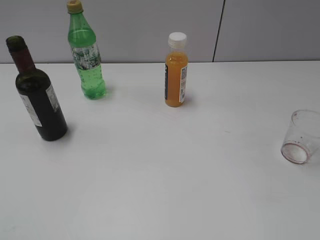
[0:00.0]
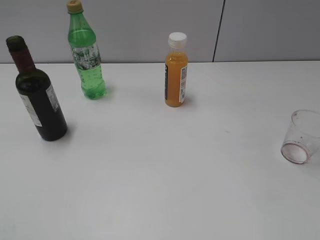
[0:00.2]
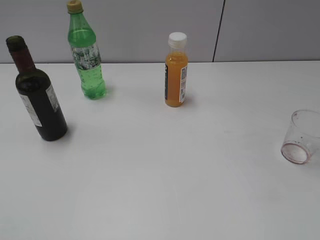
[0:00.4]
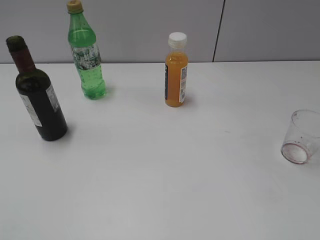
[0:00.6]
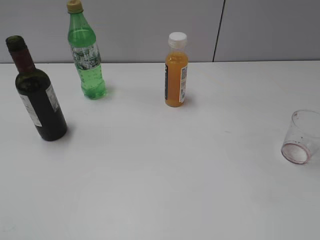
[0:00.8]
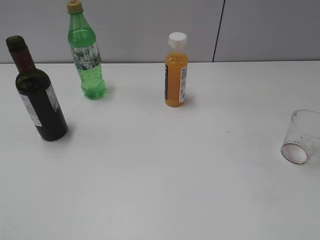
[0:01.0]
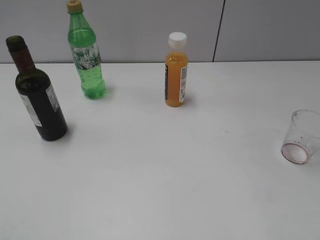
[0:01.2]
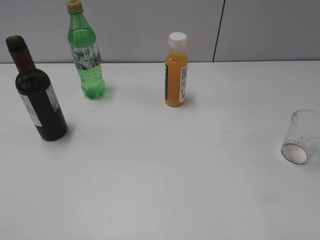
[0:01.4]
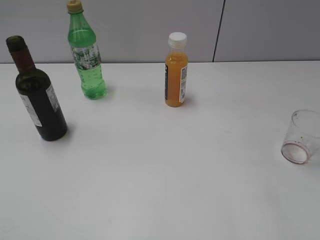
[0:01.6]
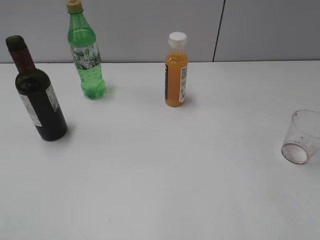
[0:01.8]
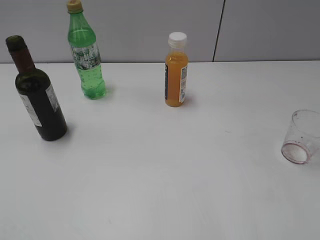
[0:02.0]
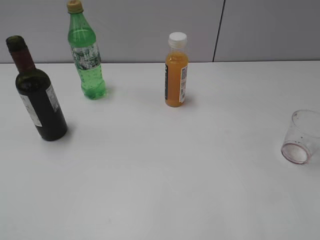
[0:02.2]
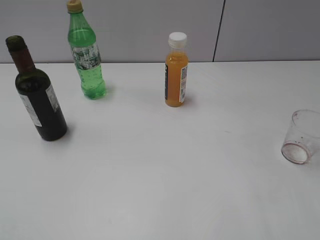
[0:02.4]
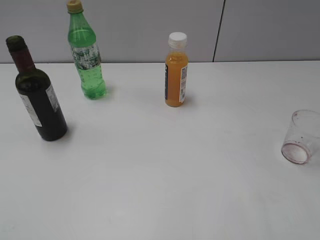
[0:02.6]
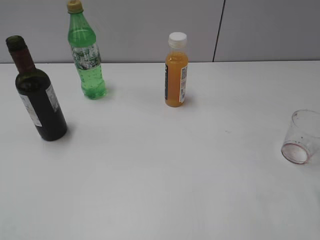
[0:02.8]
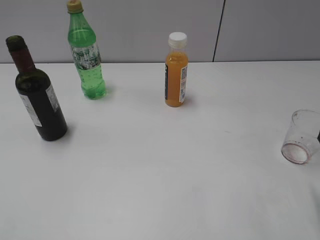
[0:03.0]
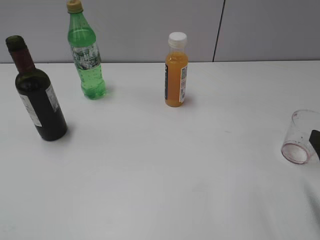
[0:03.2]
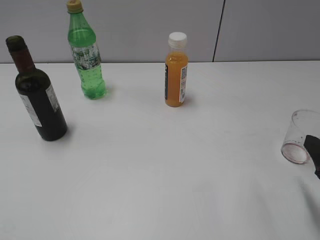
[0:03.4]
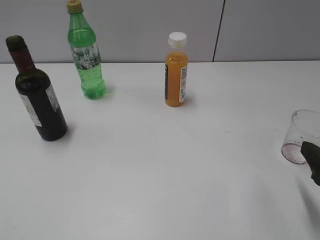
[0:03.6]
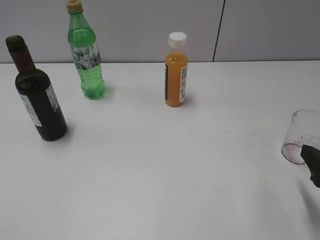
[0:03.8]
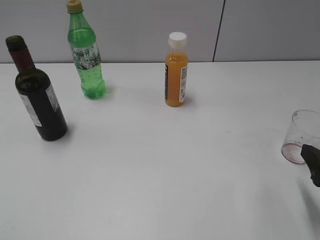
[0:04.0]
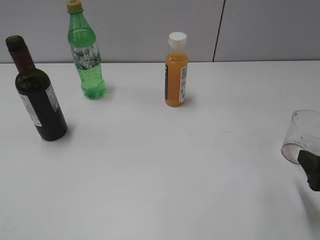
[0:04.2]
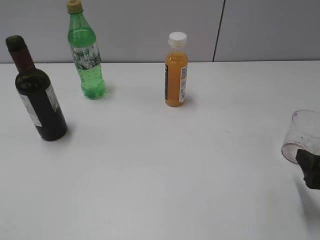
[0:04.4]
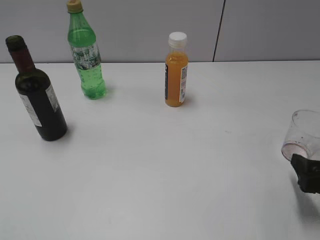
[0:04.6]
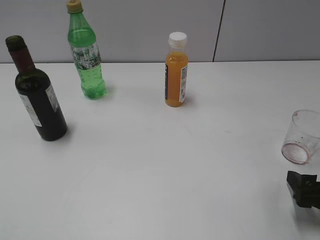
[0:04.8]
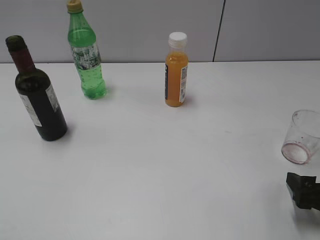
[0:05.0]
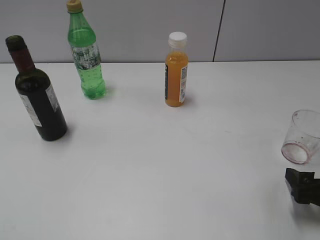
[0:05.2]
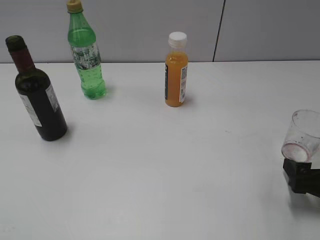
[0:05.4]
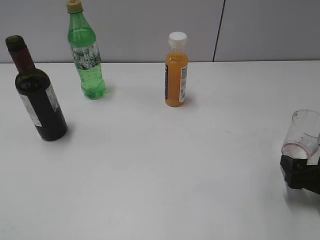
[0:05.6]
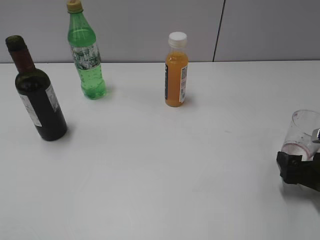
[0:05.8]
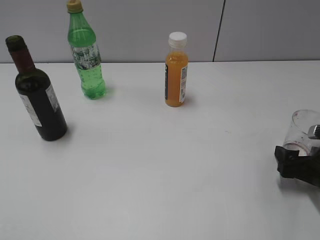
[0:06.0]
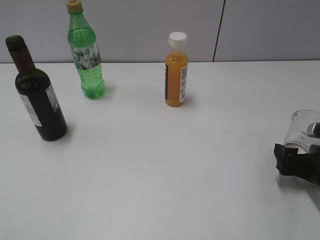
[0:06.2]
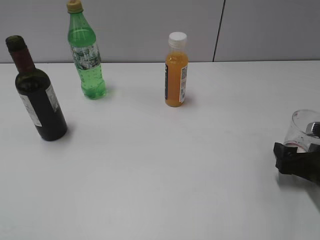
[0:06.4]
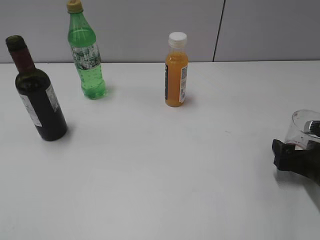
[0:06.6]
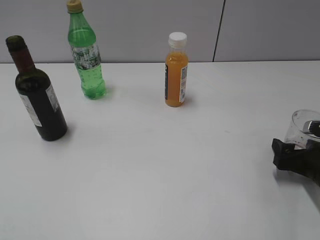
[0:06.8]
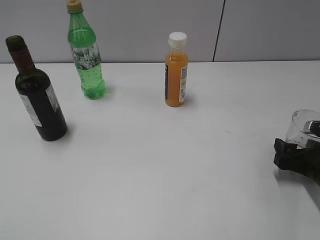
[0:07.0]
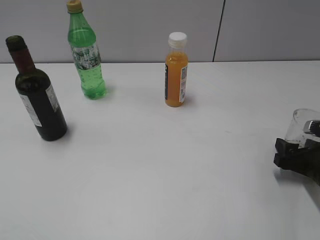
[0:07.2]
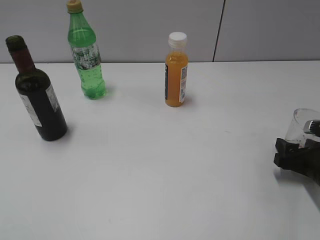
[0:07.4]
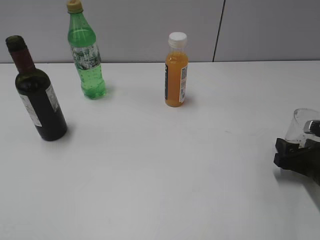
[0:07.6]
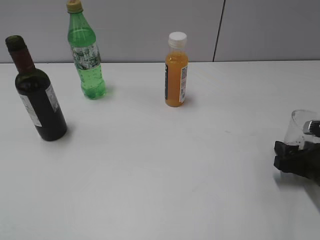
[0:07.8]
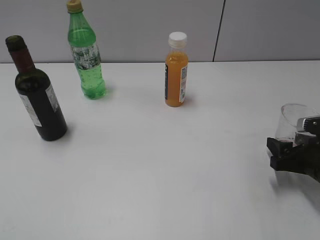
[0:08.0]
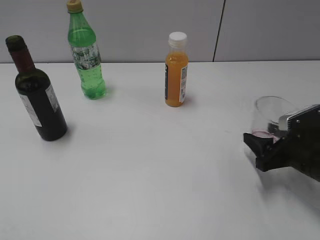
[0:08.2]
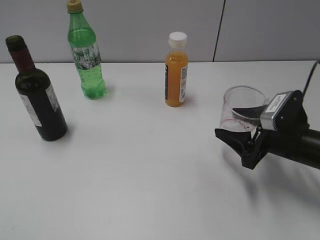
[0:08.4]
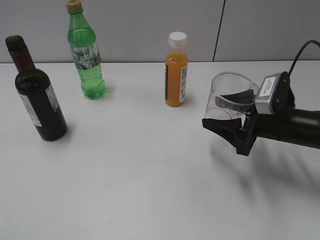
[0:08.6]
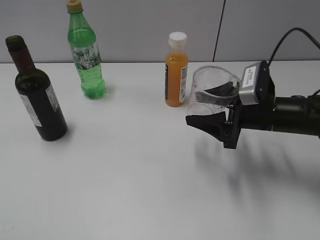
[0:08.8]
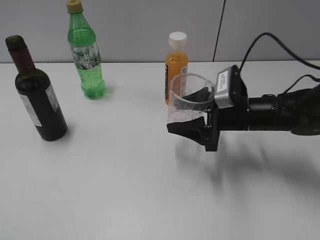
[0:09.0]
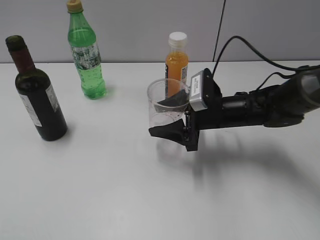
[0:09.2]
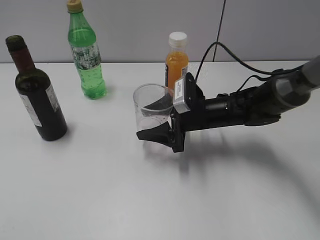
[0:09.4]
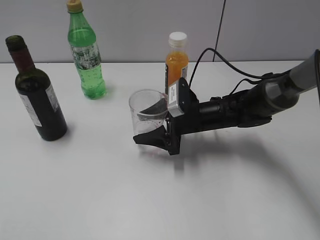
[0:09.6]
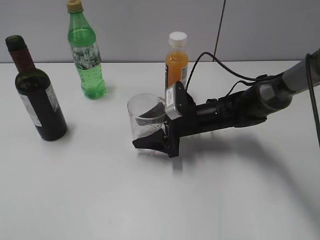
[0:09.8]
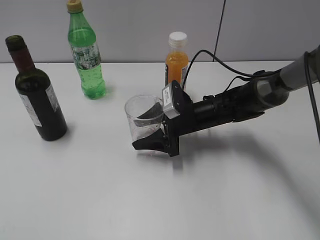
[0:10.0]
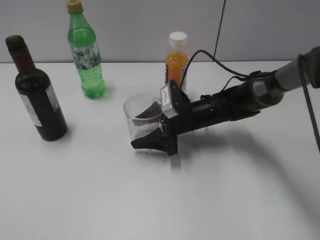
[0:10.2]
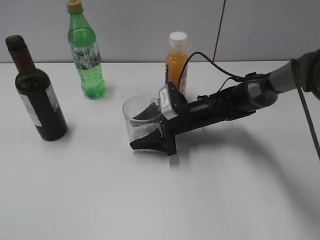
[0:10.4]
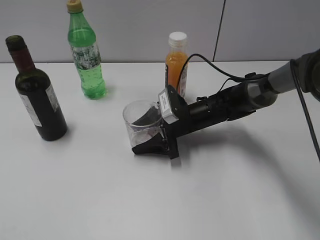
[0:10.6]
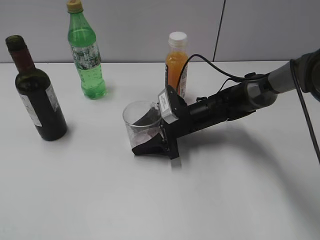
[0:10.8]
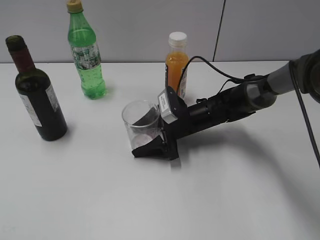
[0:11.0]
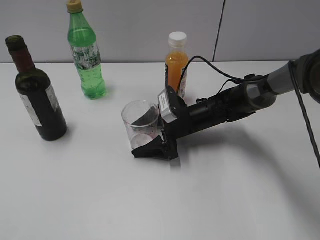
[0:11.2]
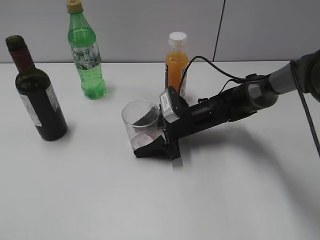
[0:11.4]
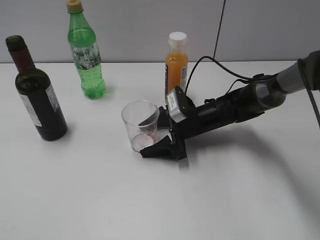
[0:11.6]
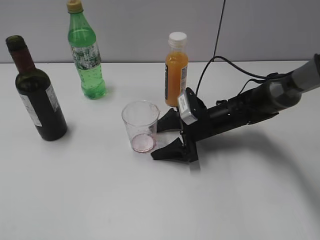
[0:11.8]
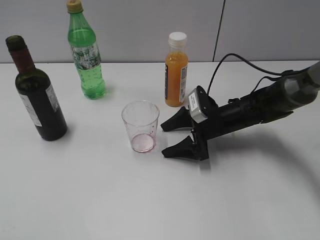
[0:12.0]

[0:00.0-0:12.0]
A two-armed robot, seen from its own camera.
Step, 0:00.8 to 0:07.4: Grasp the transparent cup with right gripper.
Step, 0:07.8 to 0:11.8: Place the transparent cup on the table with right gripper.
0:03.0 to 0:04.4: The right gripper shifts some 5 cm downward.
0:04.4 to 0:06.0: The right gripper travels downward and forward by about 10 cm.
0:06.0 to 0:07.6: The right gripper closes its fingers.
0:07.6 to 0:09.0: The right gripper moves to the left, forward and upward, approximately 15 cm.
0:09.0 to 0:10.4: The right gripper travels to the left, downward and forward by about 15 cm.
0:10.4 to 0:12.0: The right gripper is displaced to the right by approximately 5 cm, and opens.

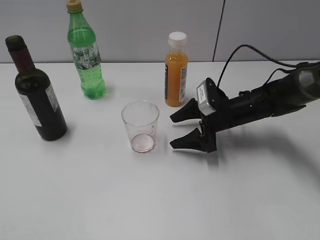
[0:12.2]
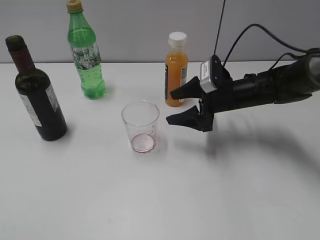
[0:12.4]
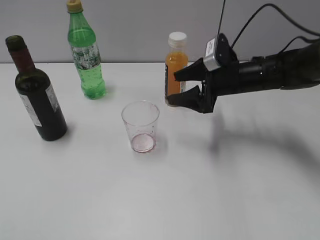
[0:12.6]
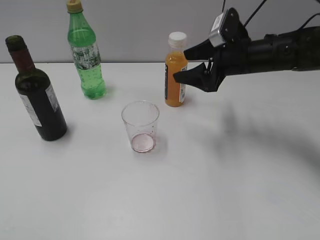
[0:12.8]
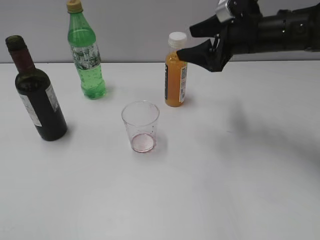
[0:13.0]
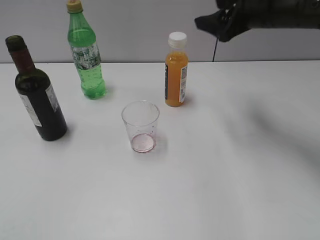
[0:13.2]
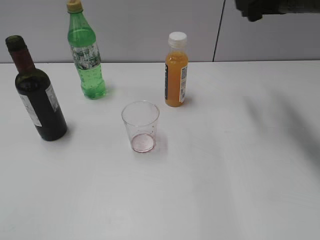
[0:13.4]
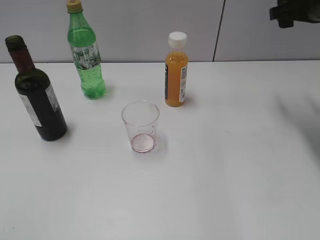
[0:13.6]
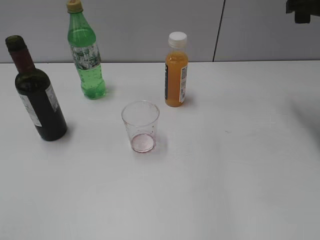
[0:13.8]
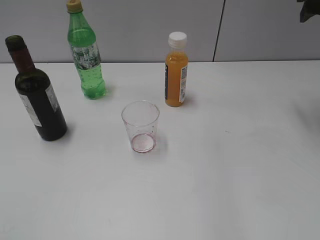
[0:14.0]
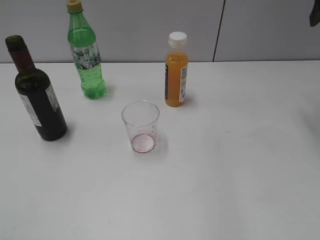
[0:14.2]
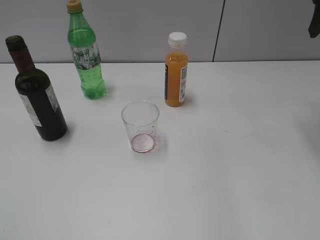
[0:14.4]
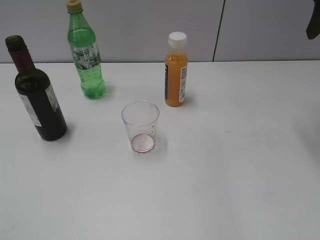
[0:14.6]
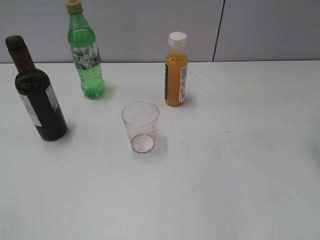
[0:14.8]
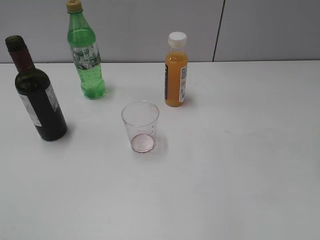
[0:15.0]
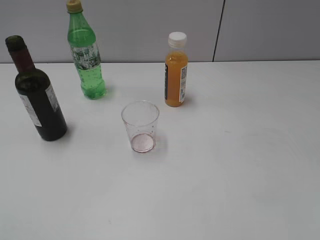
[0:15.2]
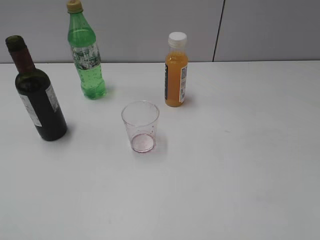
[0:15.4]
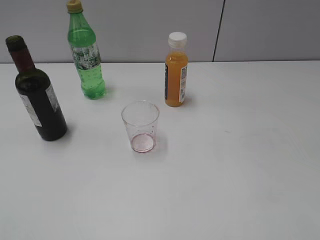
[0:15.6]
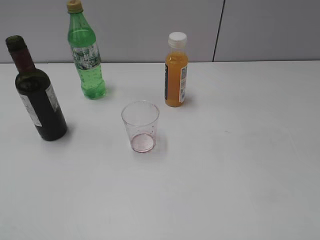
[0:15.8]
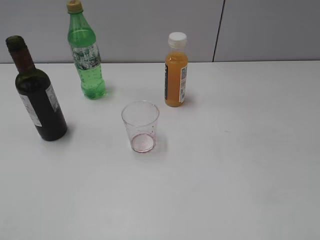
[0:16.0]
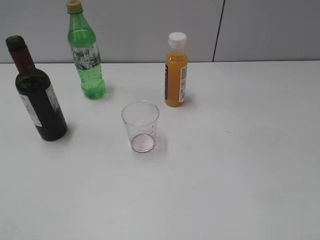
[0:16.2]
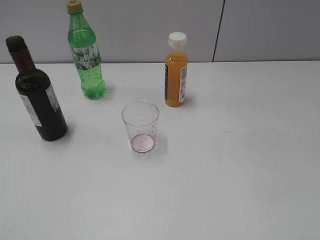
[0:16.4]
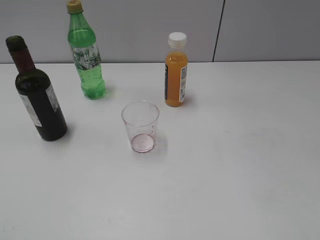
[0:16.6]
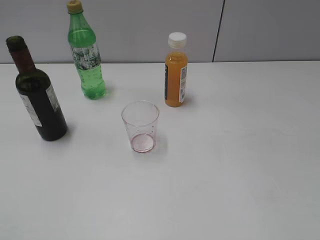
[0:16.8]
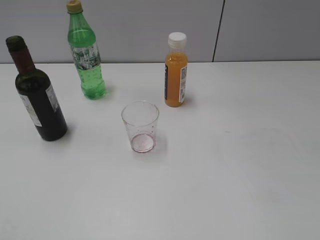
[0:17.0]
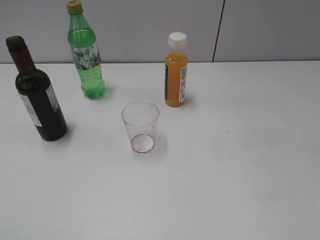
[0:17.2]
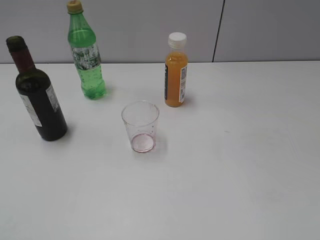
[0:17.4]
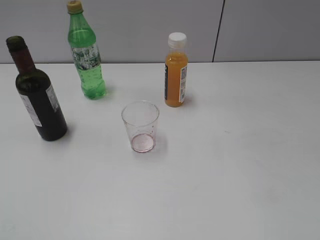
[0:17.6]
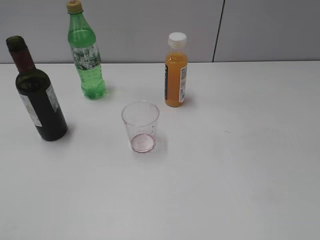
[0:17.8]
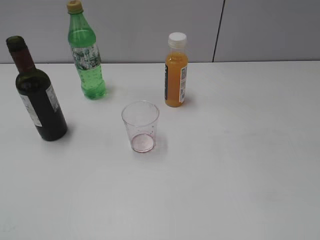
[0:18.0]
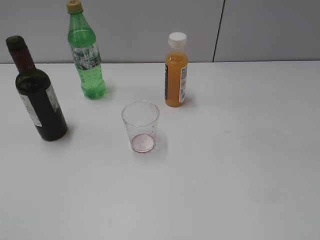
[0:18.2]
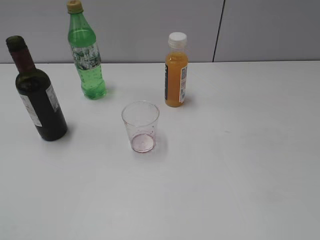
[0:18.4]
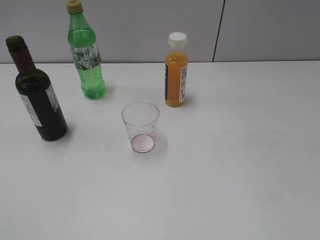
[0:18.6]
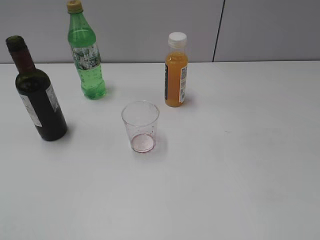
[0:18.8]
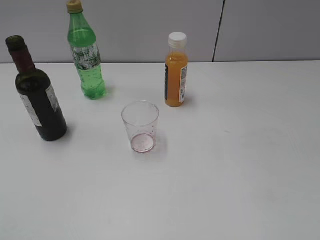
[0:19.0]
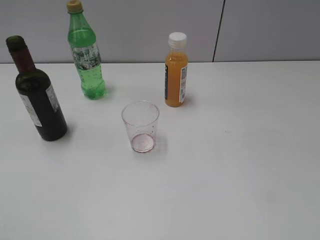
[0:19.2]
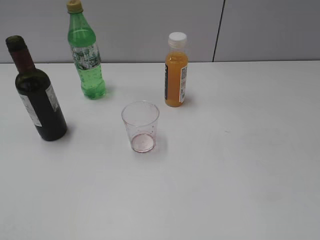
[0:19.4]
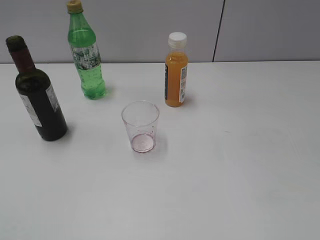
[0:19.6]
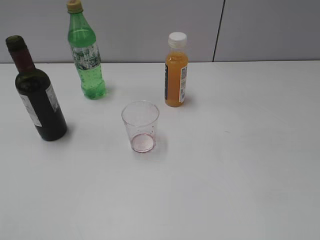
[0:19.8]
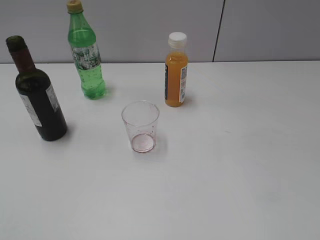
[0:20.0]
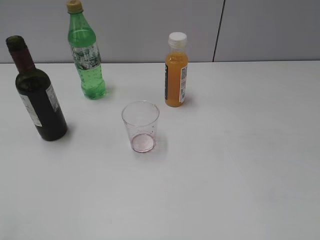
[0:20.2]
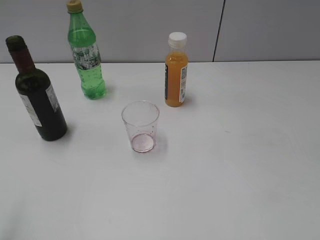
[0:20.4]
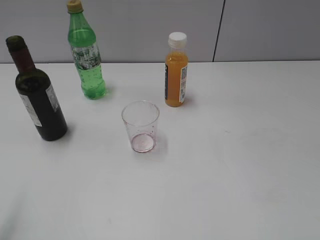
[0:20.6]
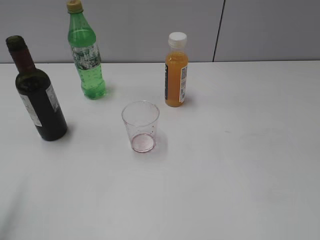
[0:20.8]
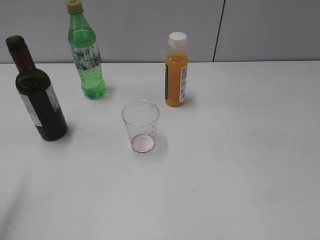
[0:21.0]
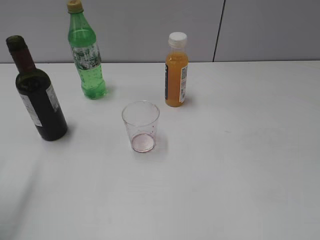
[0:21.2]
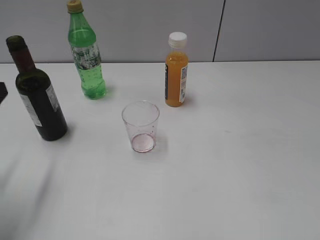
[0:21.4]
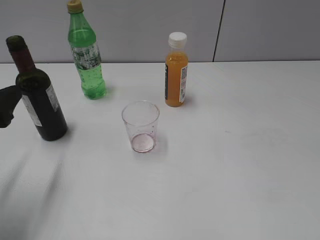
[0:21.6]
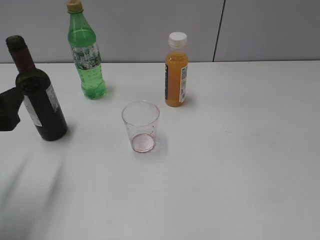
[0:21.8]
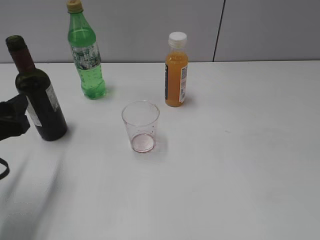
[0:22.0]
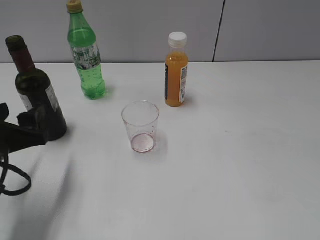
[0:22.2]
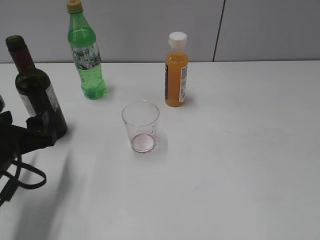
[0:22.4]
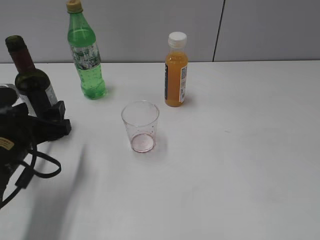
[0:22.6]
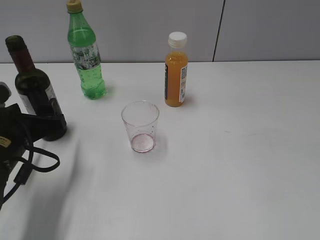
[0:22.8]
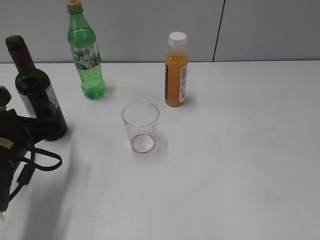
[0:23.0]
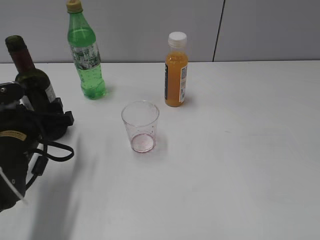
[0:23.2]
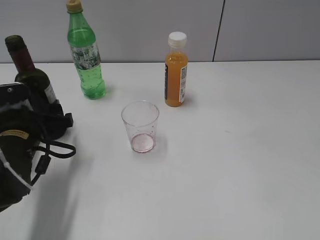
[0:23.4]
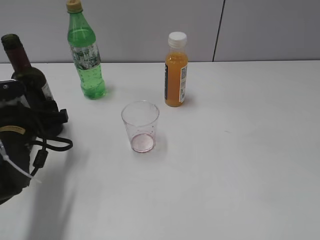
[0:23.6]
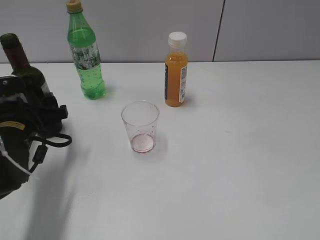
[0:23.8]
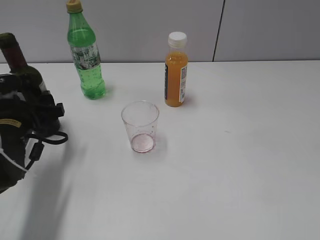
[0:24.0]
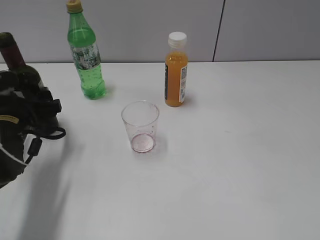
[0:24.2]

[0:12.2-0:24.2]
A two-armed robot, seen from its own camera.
0:12.2 to 0:13.8: The right gripper travels upward and to the right by approximately 25 cm, and closes up.
0:13.8 to 0:15.2: The right gripper moves backward, about 20 cm.
0:19.8 to 0:21.2: The left gripper is displaced forward by some 20 cm.
0:21.2 to 0:22.6: The left gripper goes about 15 cm downward, to the right and forward.
0:22.6 to 0:24.2: The left gripper shifts approximately 5 cm forward.
